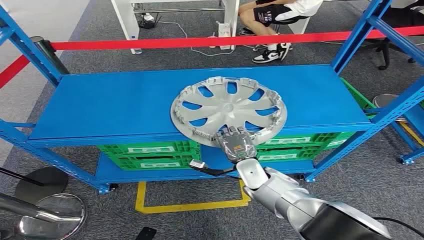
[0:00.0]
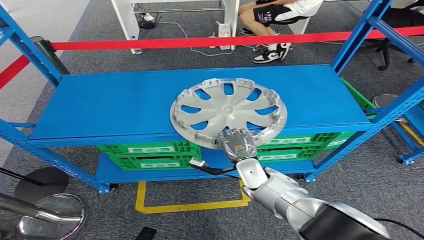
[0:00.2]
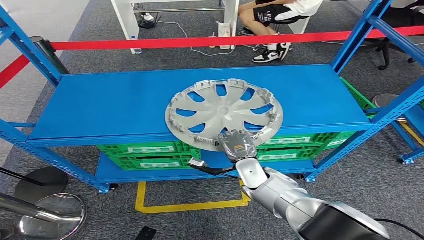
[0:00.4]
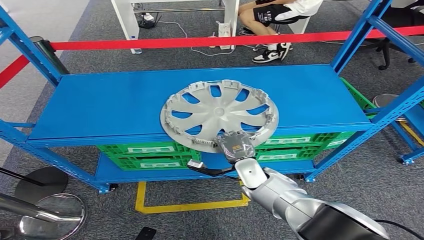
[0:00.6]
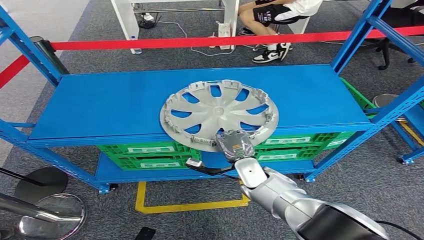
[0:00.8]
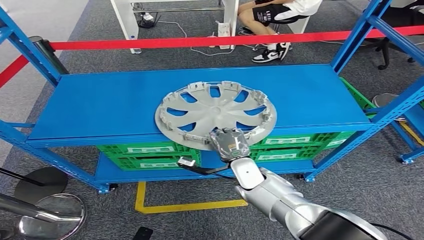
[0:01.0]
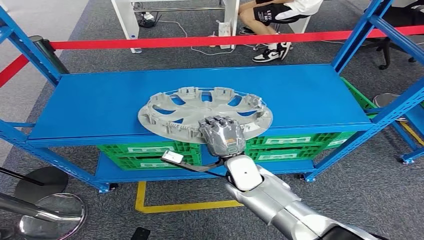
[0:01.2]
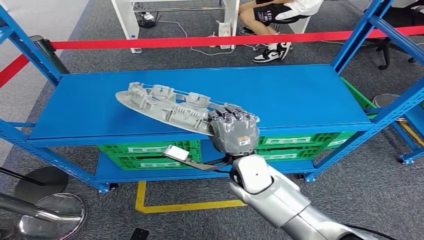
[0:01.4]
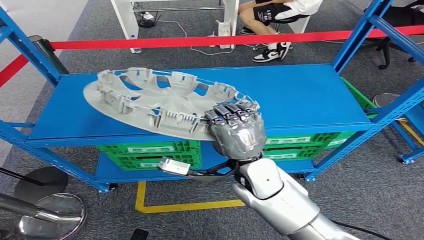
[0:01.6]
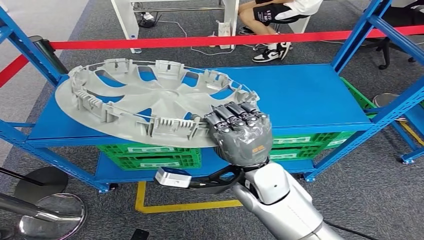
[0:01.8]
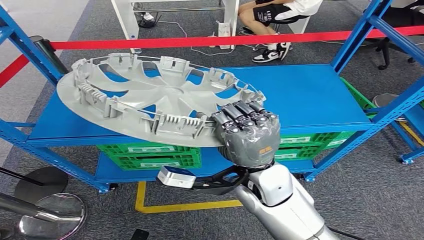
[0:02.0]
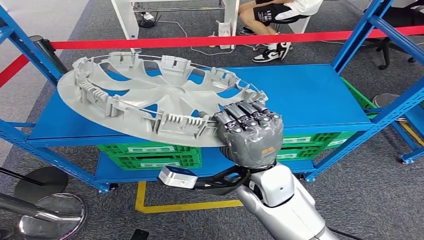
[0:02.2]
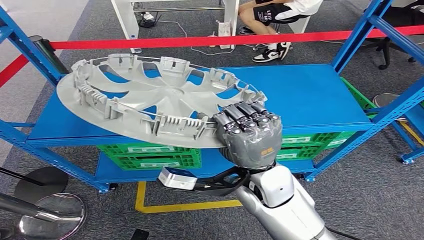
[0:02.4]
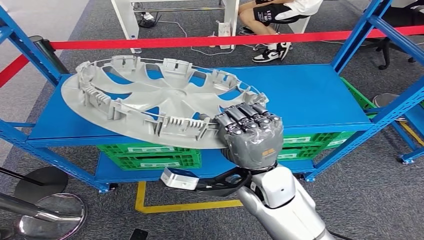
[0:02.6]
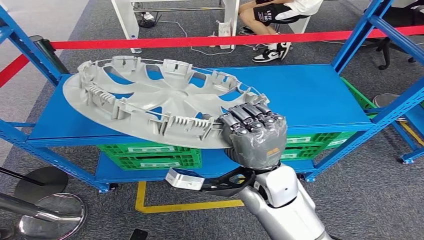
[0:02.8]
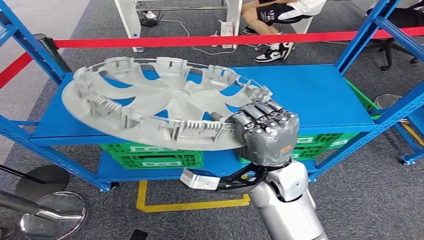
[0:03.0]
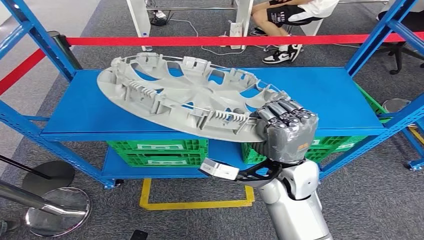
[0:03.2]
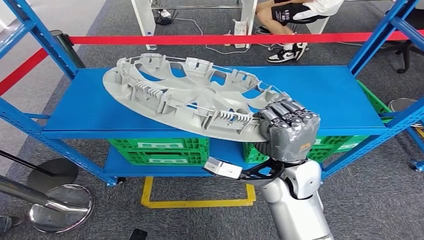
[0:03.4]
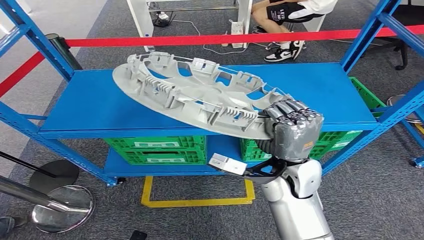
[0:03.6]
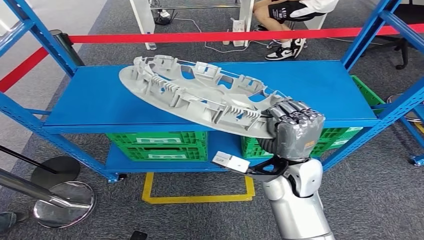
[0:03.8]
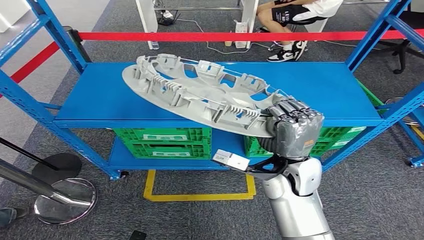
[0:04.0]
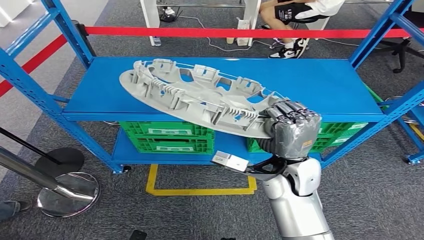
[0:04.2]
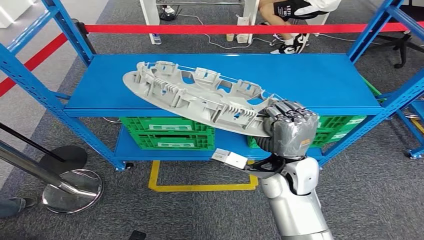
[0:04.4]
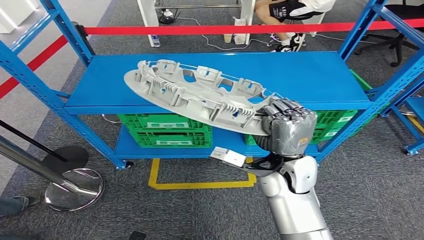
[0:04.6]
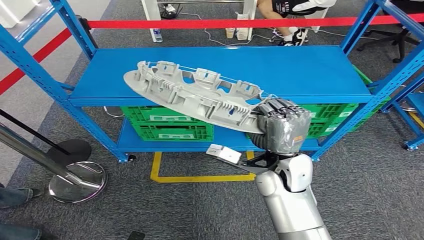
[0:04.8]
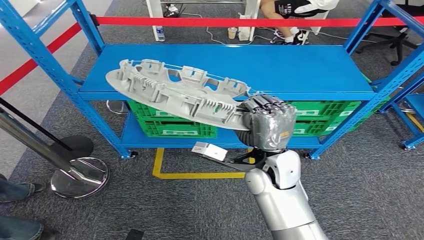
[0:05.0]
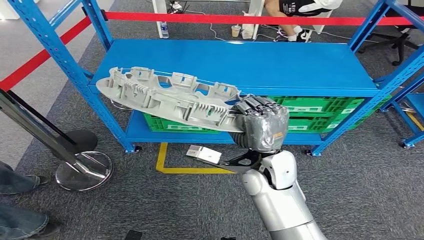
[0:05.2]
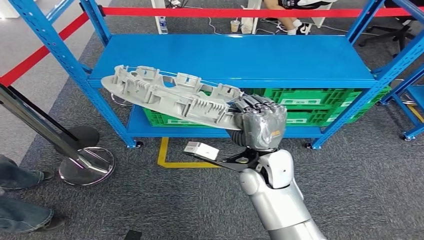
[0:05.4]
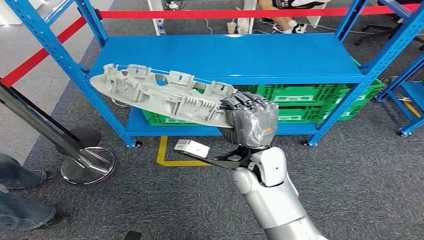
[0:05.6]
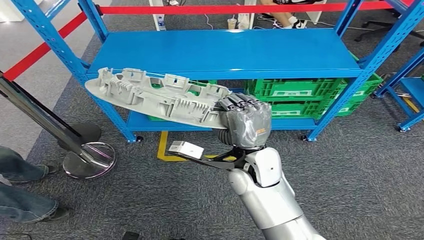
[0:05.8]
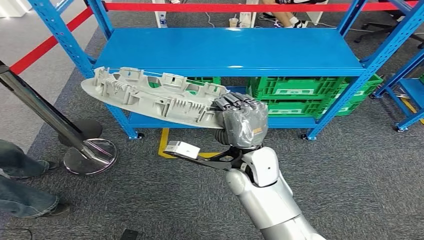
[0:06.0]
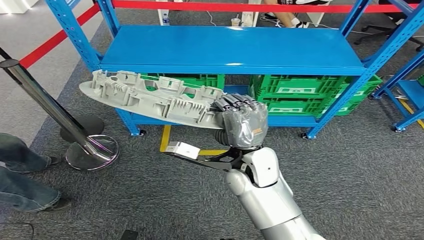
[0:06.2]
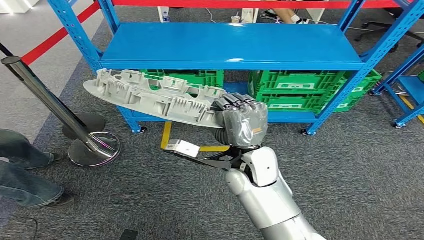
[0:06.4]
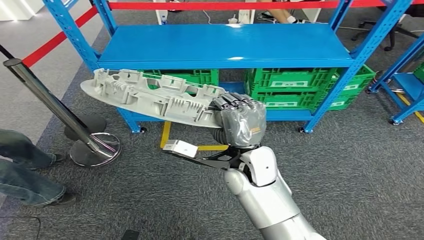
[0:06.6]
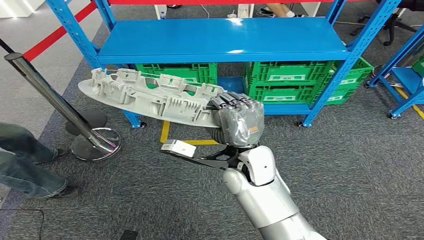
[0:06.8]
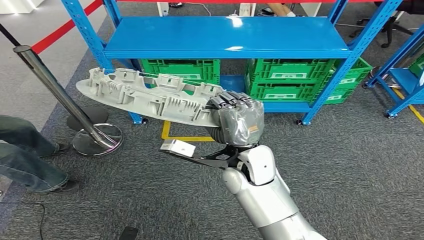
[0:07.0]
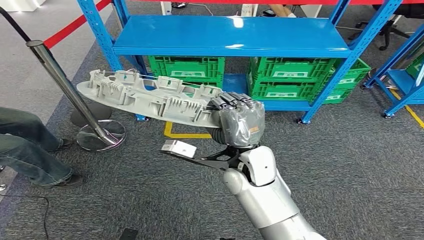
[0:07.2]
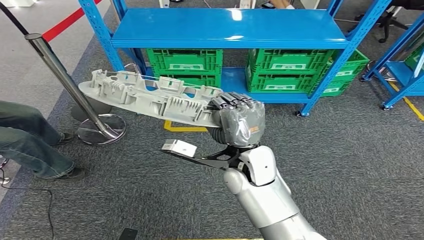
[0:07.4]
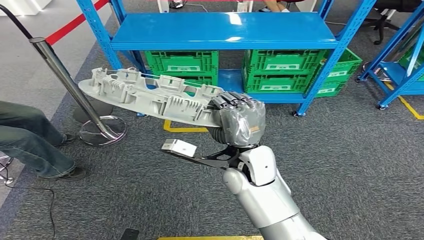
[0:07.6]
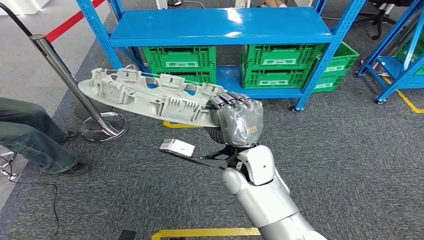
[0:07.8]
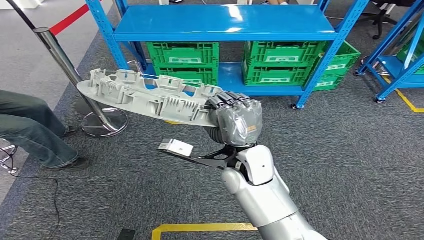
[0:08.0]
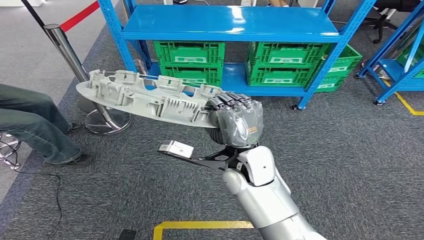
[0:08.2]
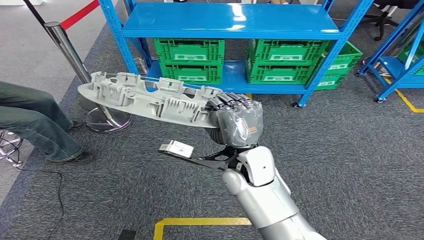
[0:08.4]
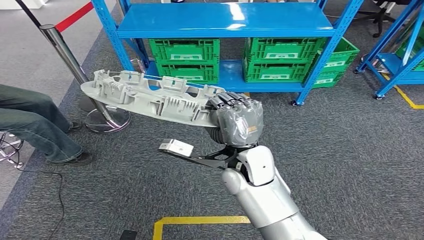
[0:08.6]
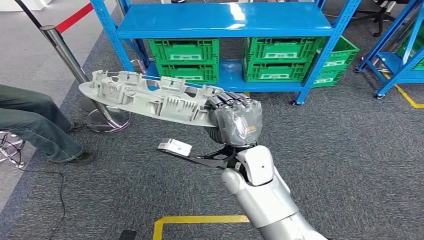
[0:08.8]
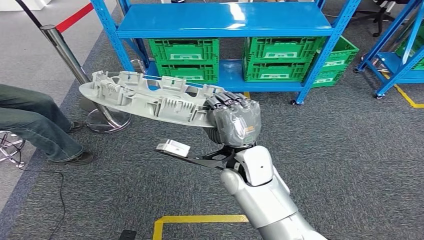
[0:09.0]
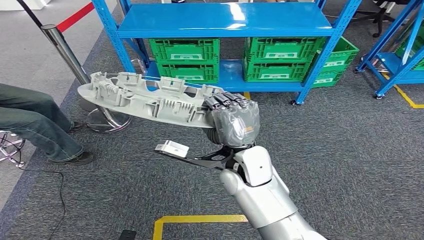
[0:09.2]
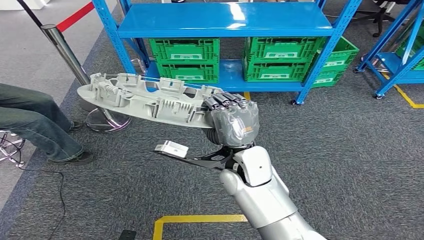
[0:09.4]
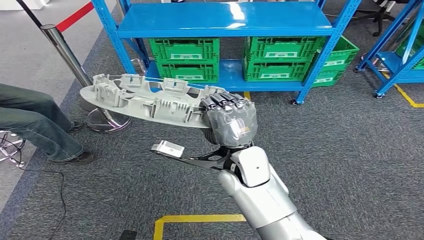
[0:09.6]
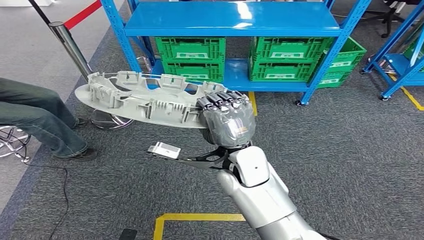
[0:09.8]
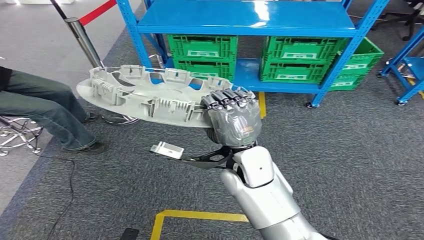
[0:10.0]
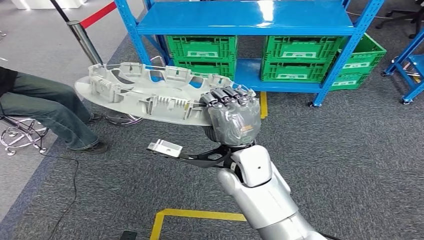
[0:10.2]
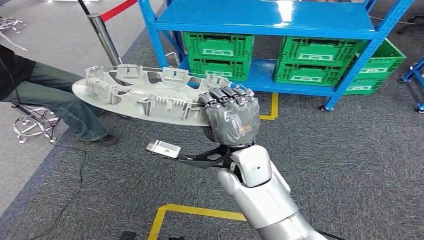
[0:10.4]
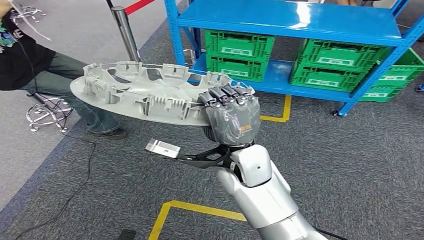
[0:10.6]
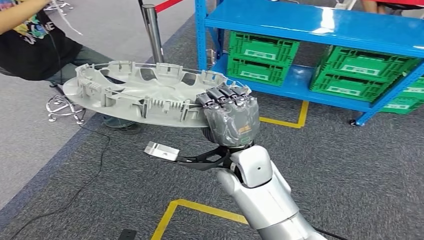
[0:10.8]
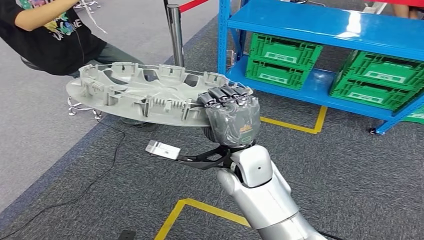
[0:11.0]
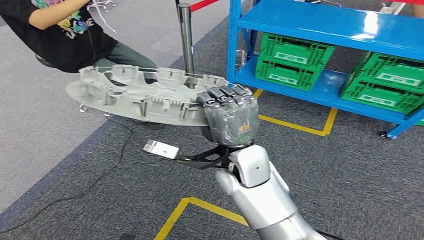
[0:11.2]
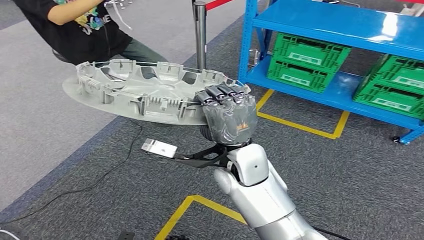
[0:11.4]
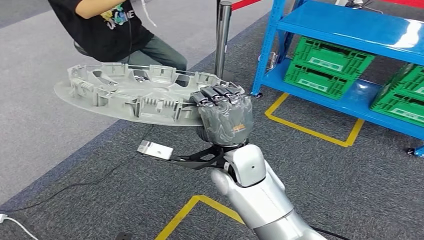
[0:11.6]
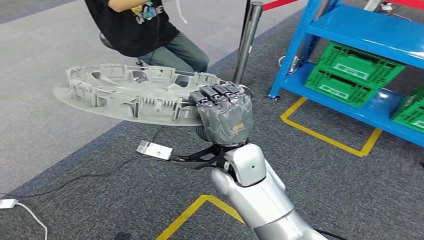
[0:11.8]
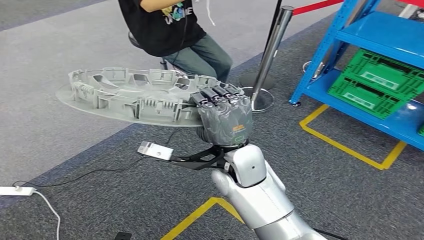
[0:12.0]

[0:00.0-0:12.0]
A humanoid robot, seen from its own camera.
Step, 0:00.0 to 0:02.6: Pick up the small component from the shelf.

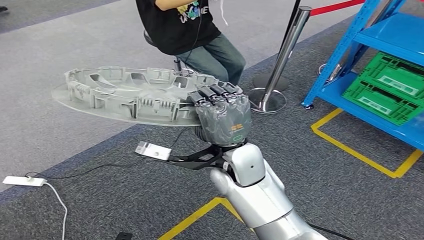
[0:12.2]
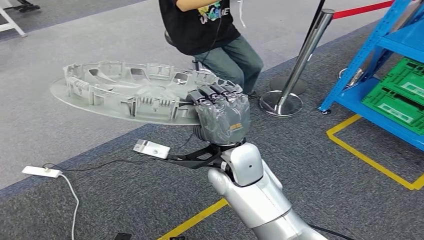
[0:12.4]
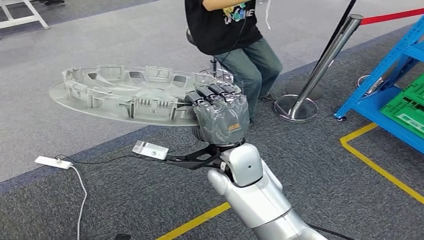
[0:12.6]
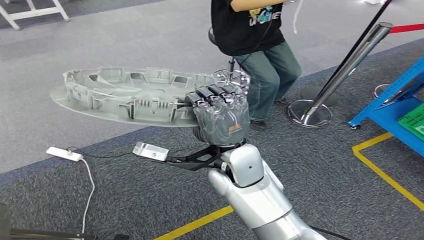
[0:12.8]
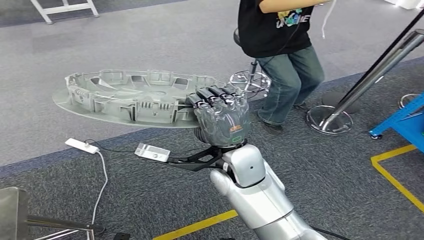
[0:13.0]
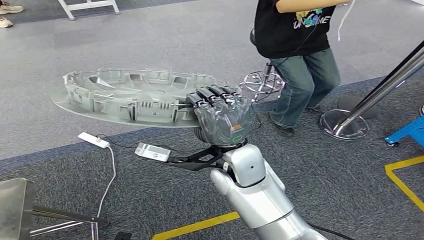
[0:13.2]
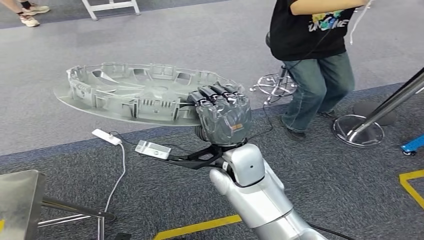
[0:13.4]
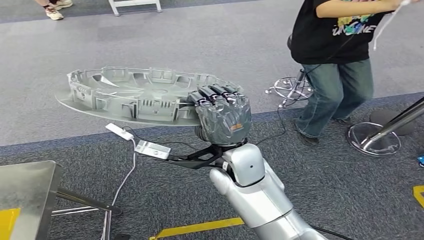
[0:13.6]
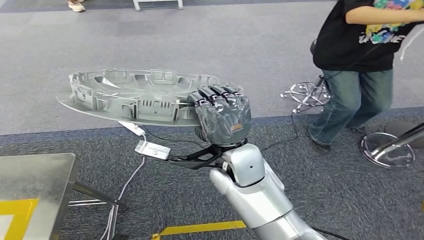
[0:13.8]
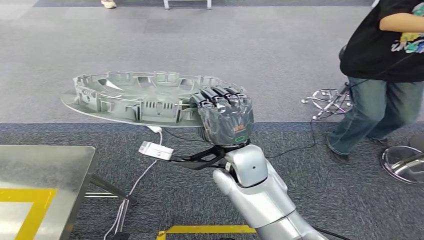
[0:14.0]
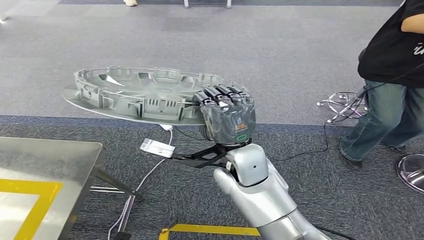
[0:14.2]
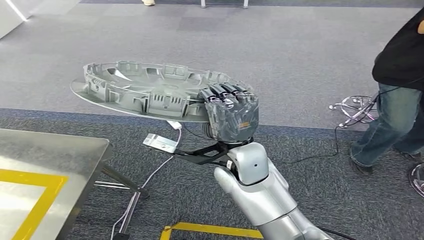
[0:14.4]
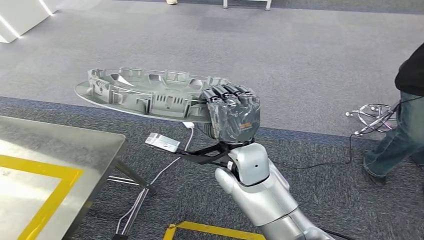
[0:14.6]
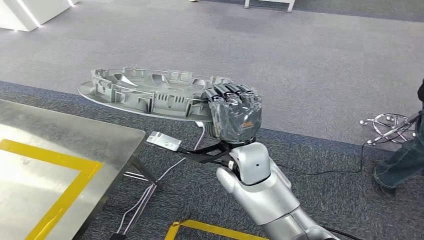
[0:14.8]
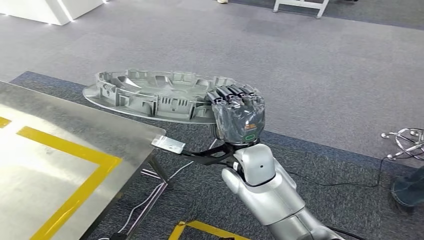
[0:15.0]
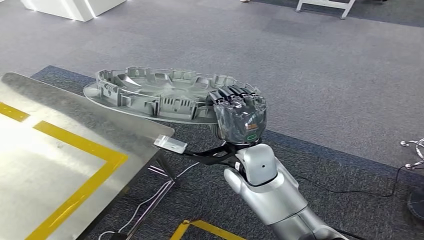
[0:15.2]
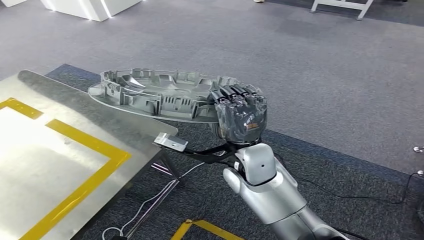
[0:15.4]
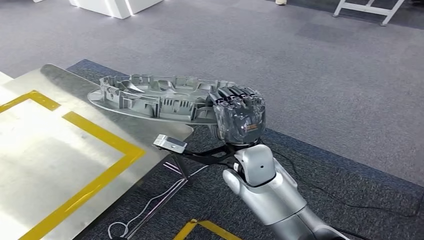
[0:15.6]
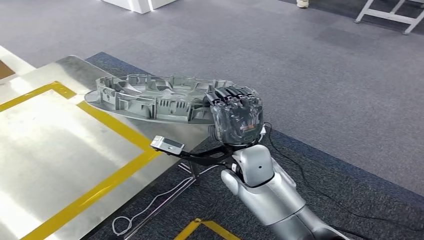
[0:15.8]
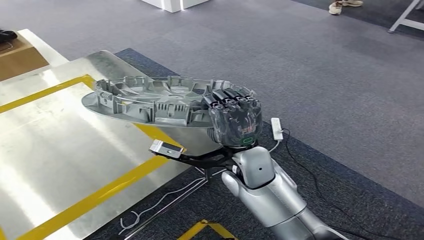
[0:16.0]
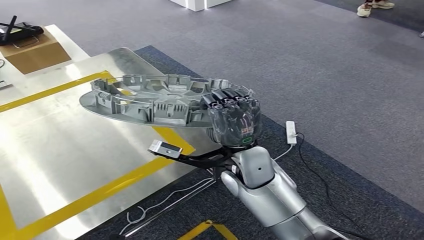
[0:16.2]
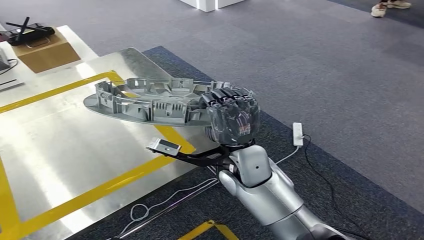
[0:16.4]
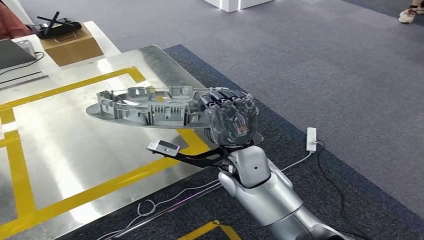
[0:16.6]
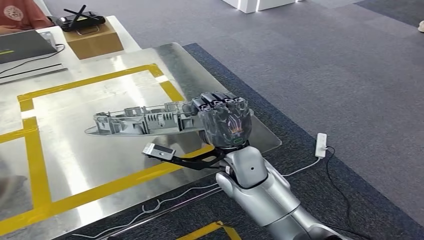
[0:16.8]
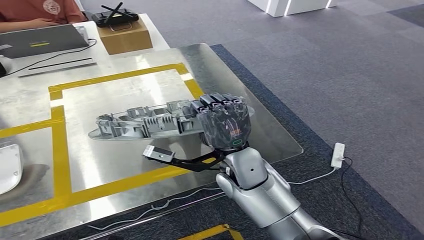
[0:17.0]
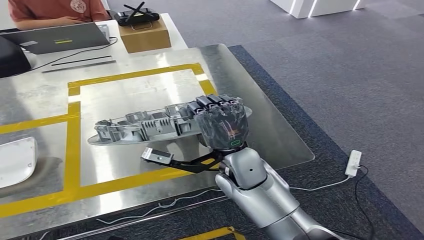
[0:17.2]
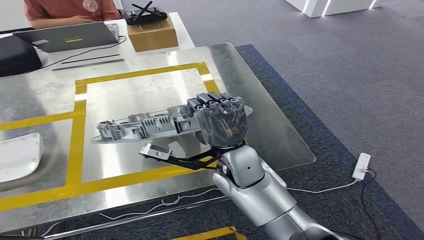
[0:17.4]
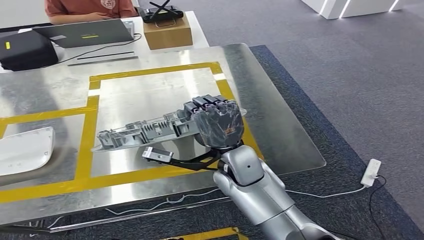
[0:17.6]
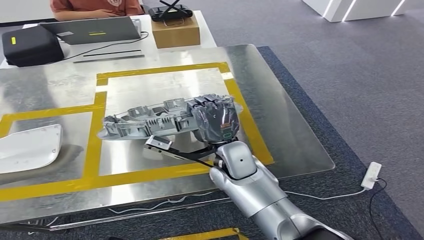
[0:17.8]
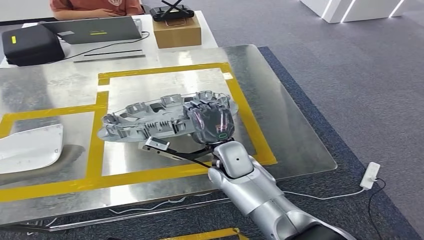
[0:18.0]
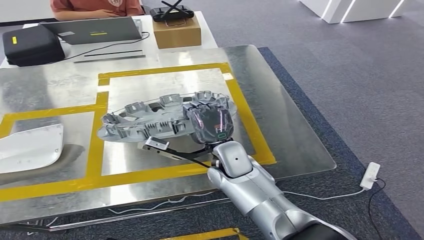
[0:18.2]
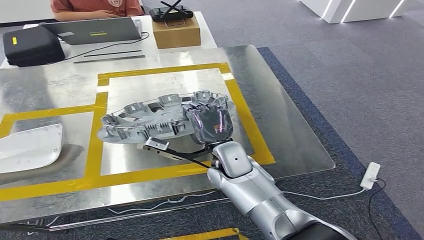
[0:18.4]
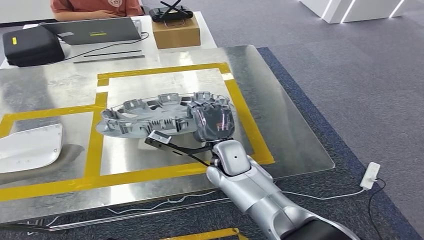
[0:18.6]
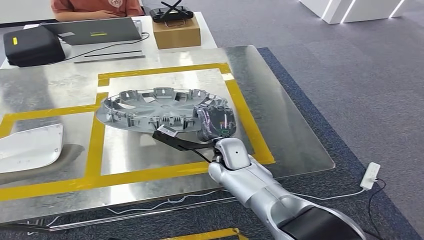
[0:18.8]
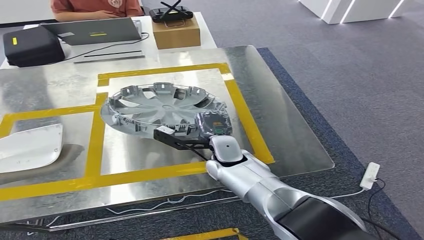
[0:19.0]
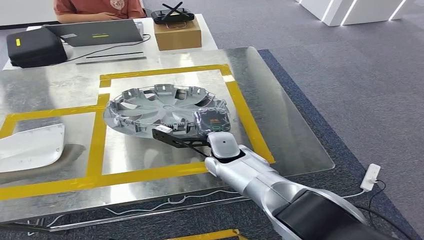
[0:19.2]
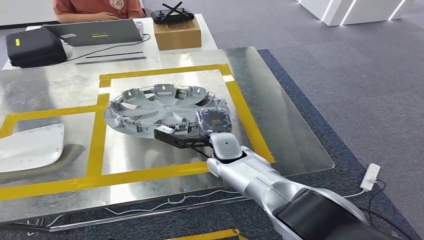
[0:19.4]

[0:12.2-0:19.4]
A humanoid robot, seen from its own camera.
Step, 0:12.2 to 0:17.4: Move the small component to the workbench.
